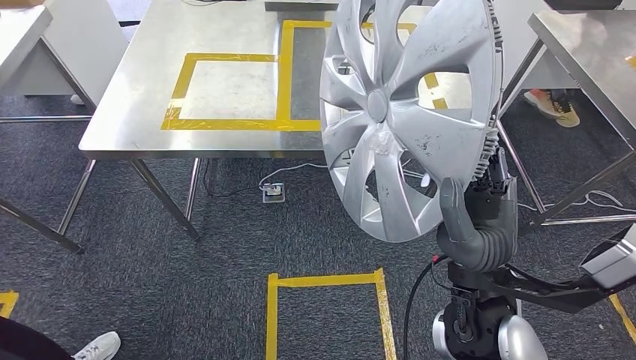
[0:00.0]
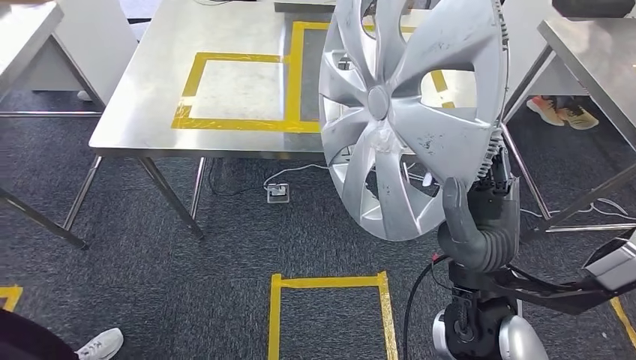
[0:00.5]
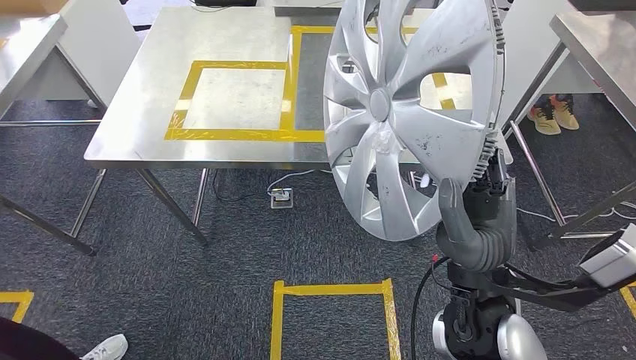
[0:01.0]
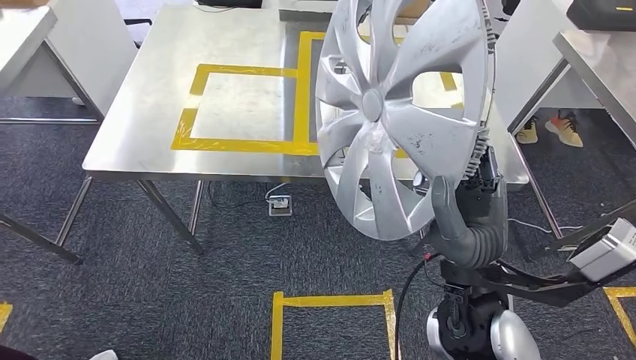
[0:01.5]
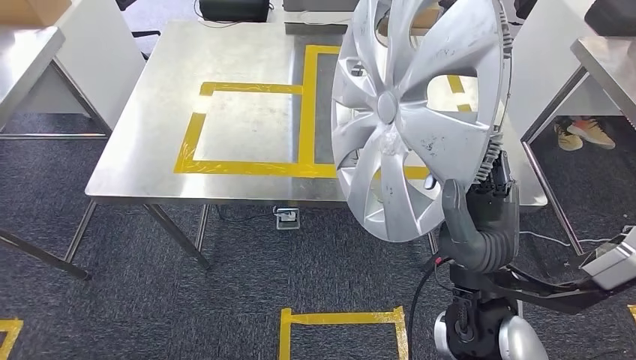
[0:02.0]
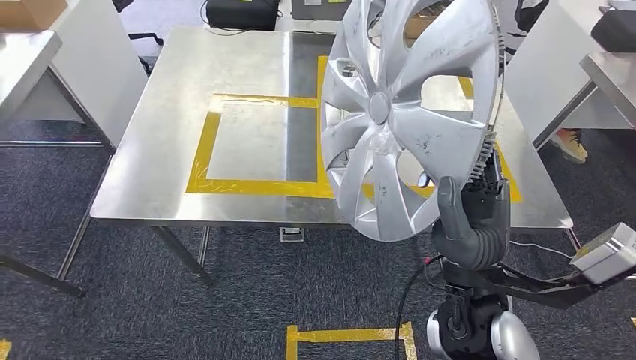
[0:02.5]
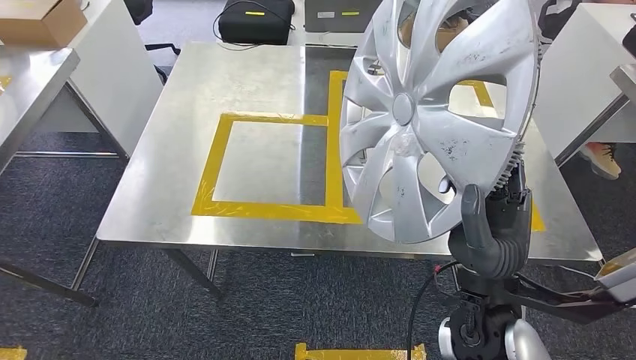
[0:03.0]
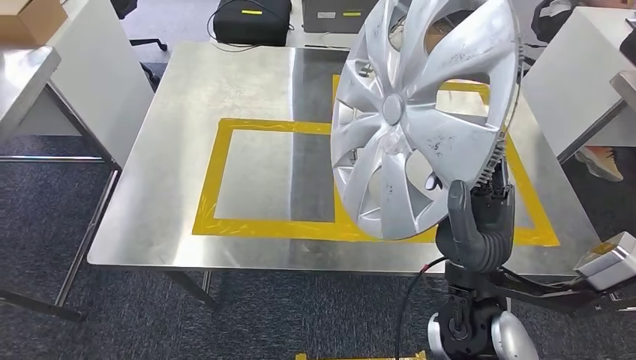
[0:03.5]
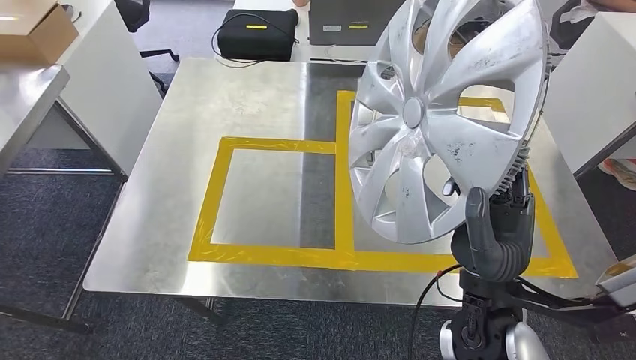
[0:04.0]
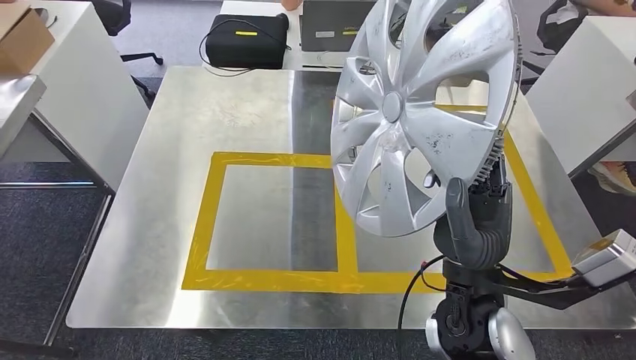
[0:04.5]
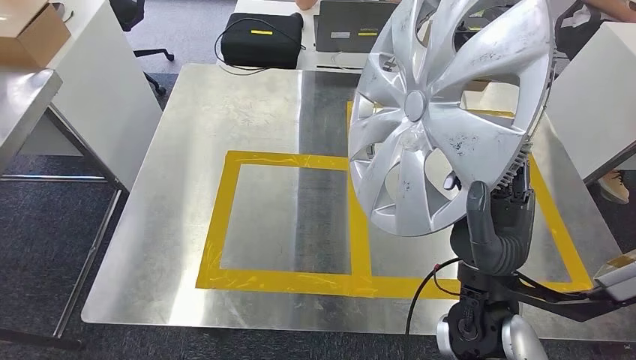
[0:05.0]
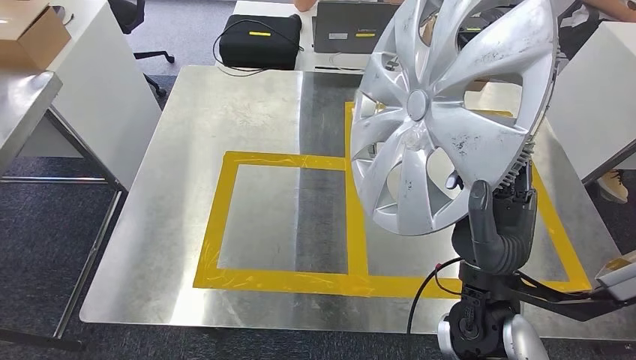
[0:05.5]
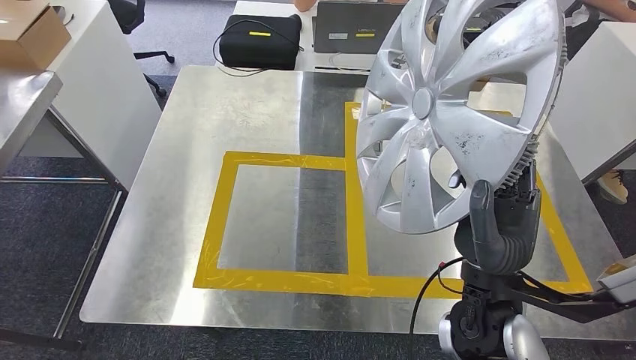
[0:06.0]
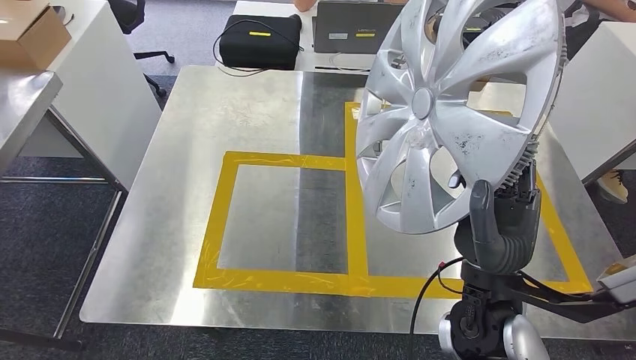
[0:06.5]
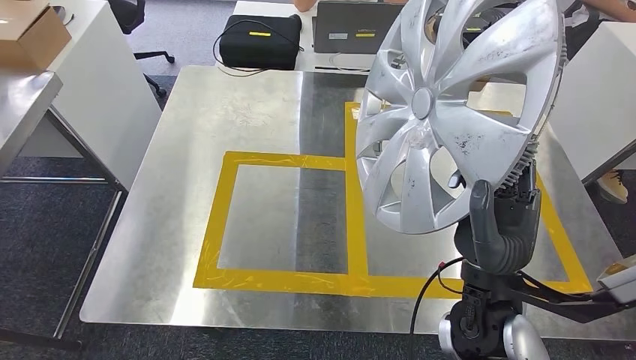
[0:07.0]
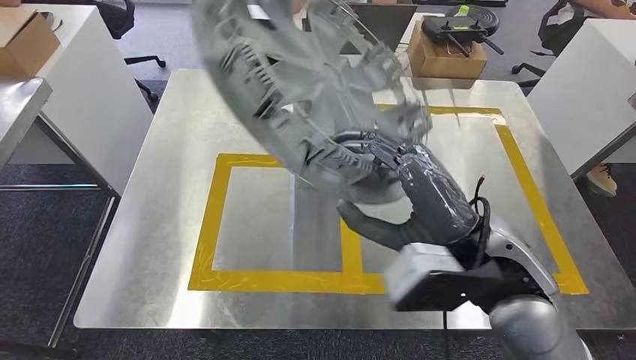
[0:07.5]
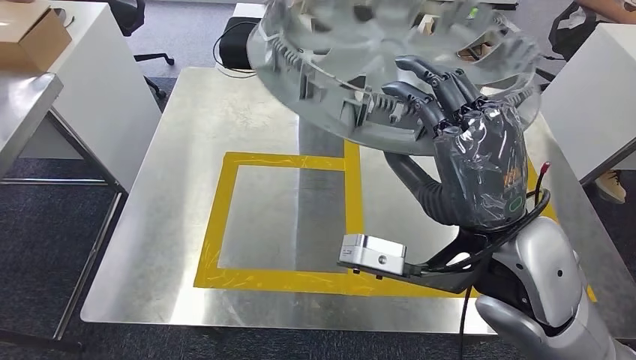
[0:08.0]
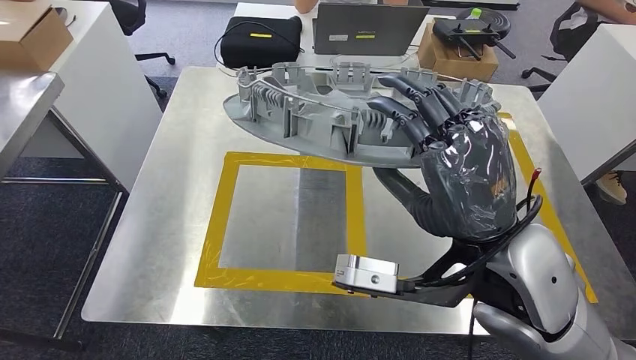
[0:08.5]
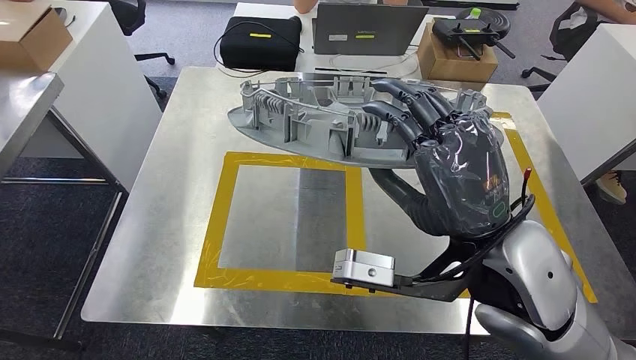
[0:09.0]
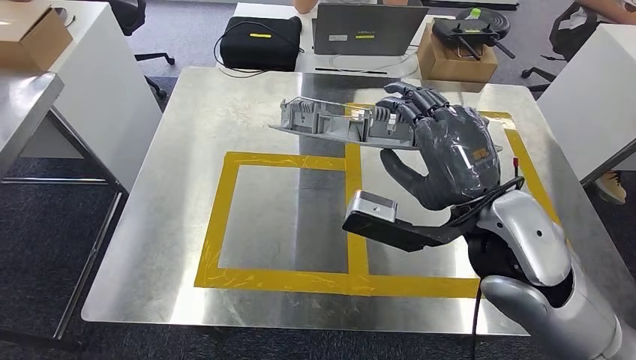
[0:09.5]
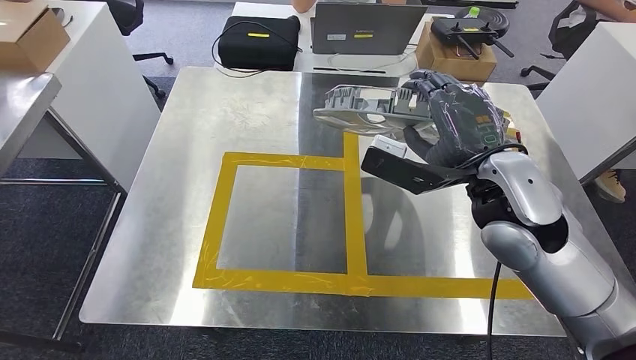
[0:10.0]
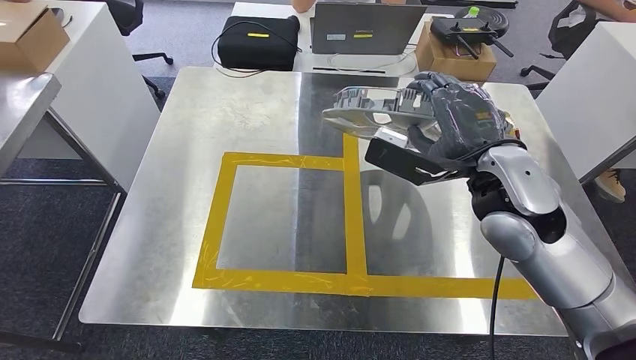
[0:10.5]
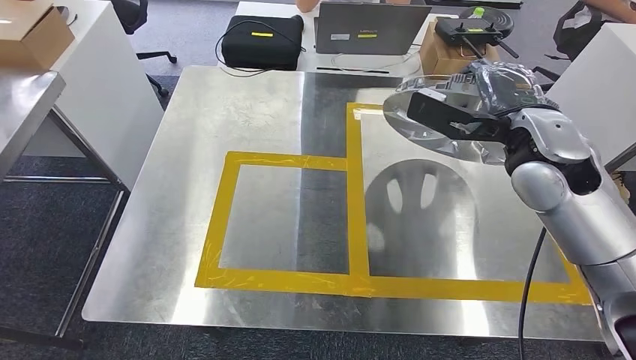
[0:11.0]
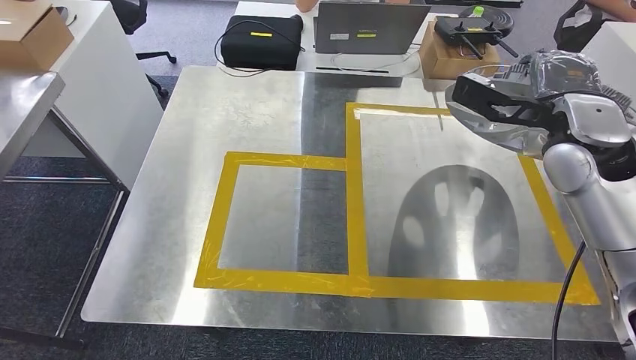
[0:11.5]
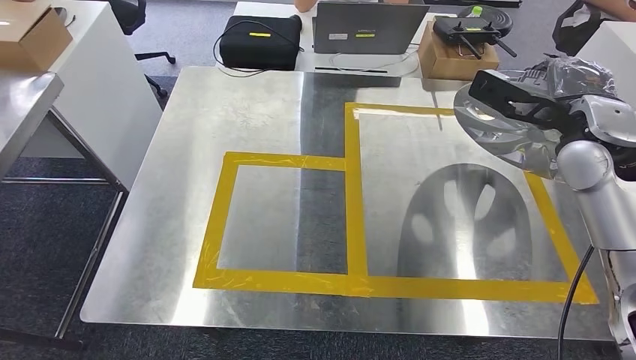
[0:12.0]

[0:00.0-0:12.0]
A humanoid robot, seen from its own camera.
Step, 0:00.0 to 0:03.0: Bring the small component to the front of the workbench.

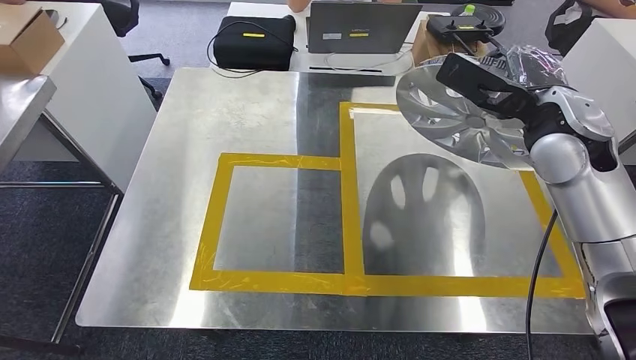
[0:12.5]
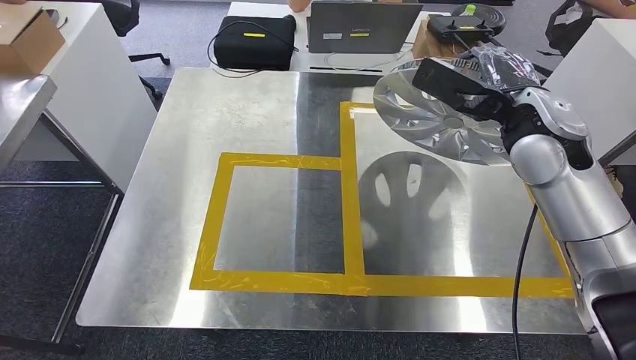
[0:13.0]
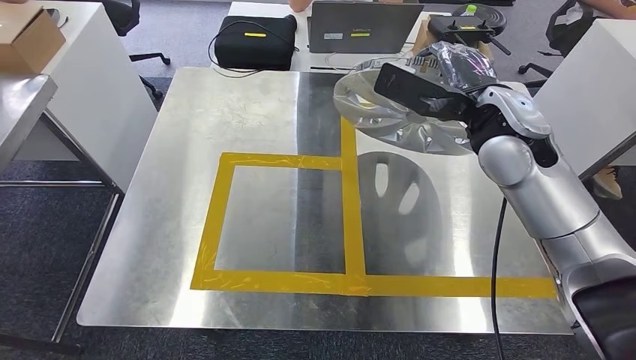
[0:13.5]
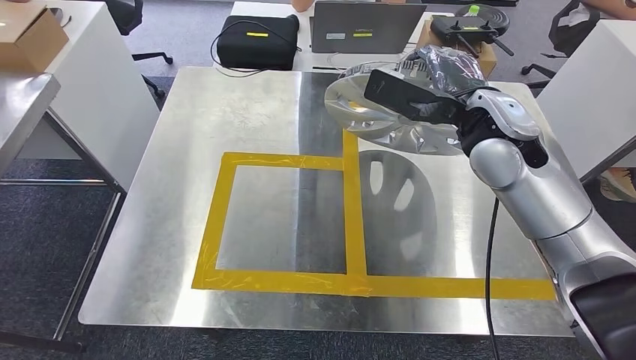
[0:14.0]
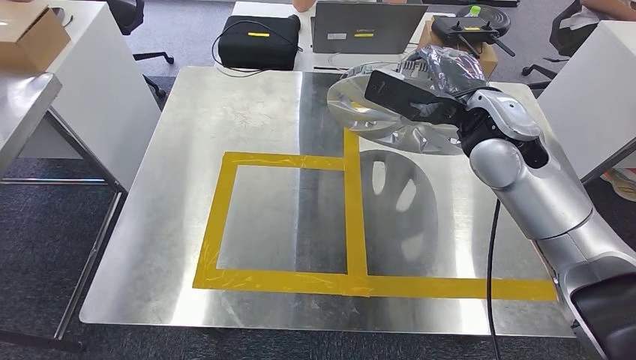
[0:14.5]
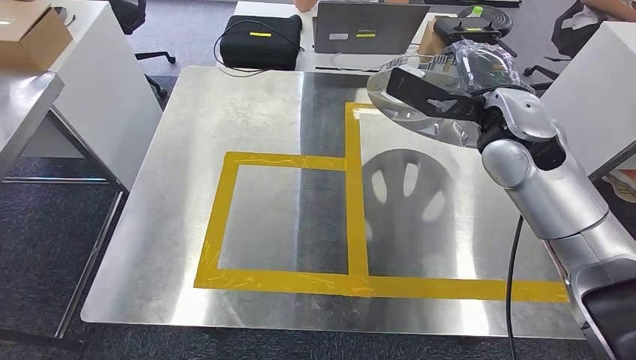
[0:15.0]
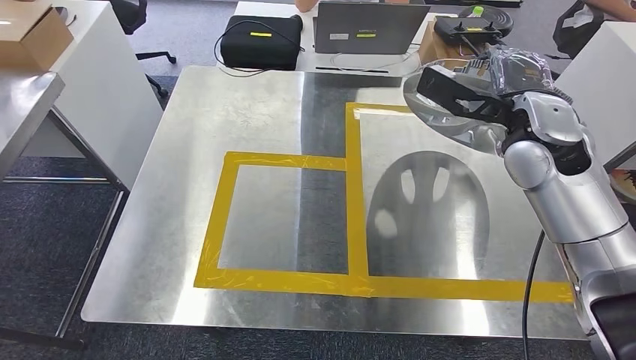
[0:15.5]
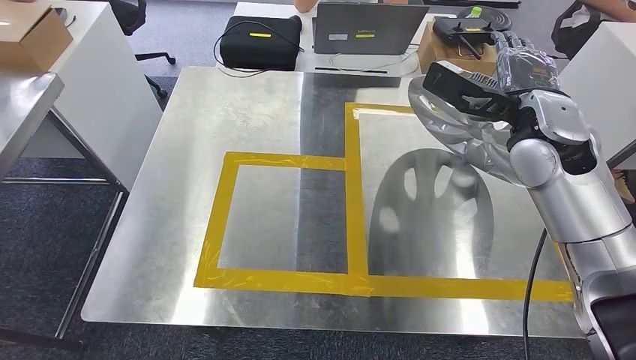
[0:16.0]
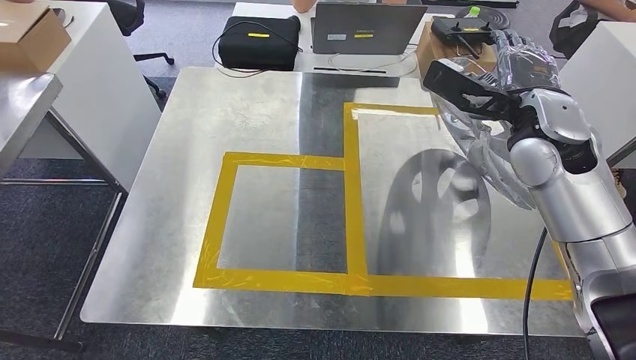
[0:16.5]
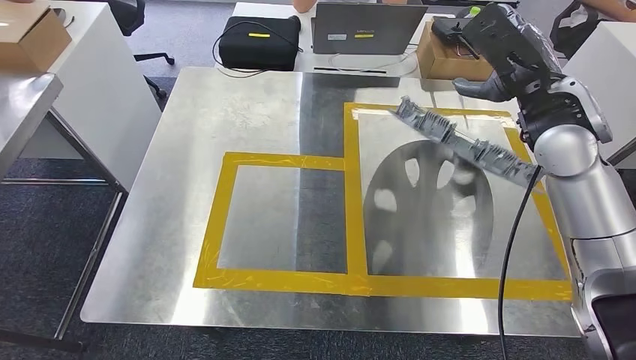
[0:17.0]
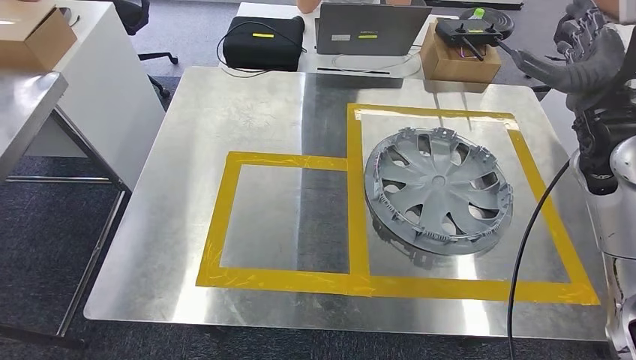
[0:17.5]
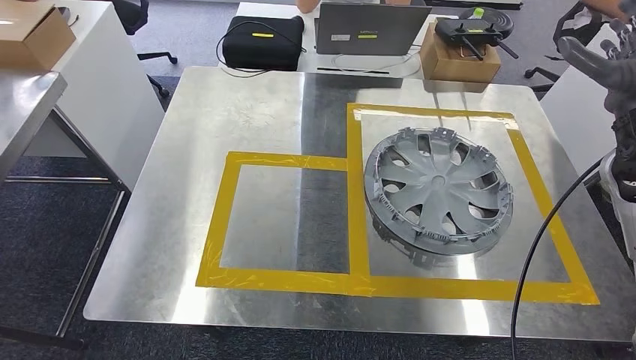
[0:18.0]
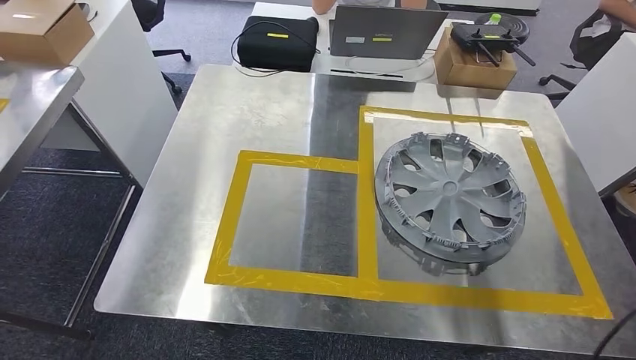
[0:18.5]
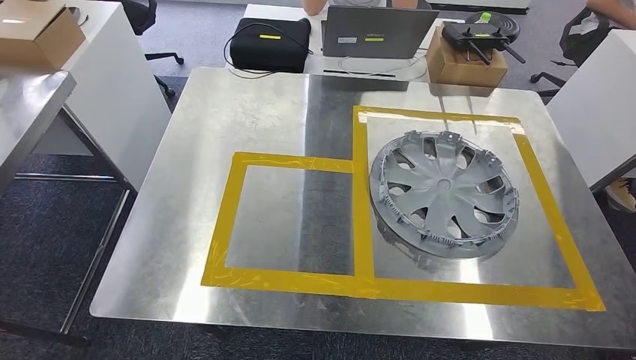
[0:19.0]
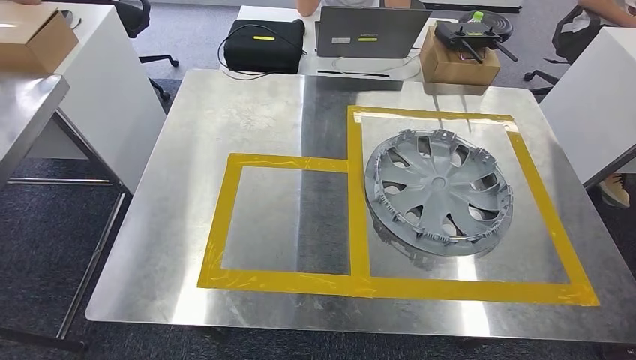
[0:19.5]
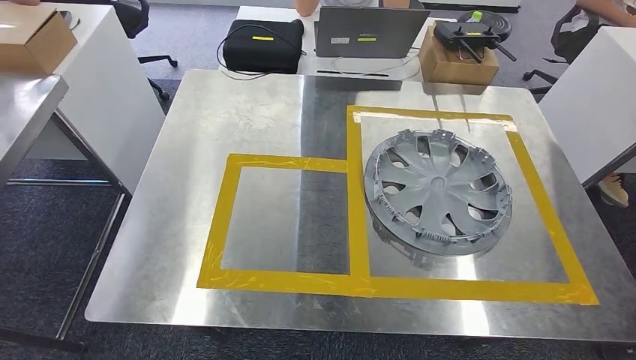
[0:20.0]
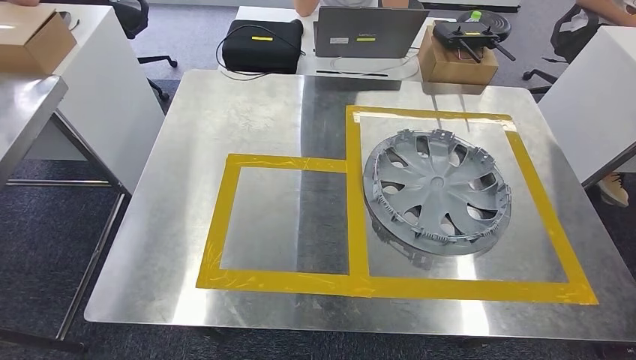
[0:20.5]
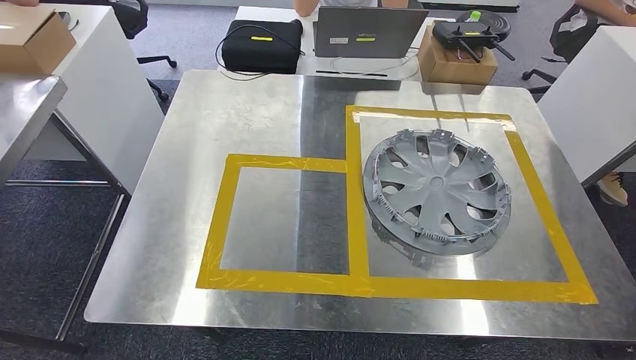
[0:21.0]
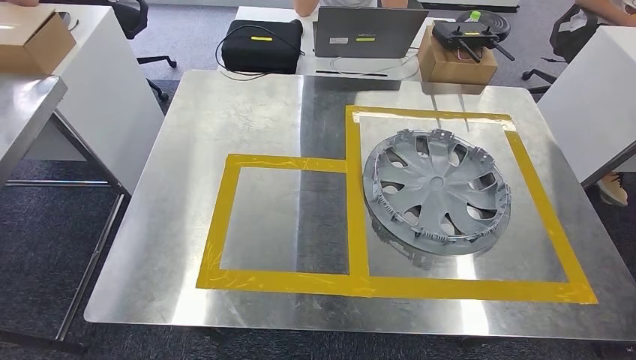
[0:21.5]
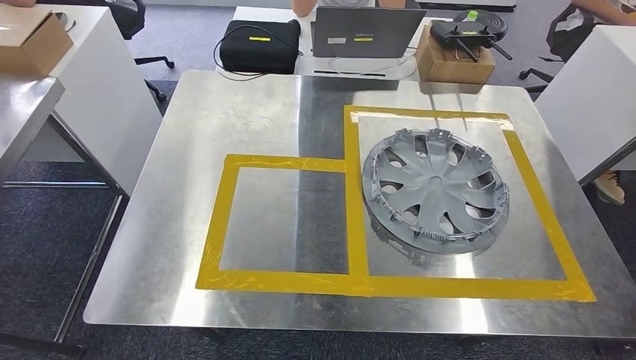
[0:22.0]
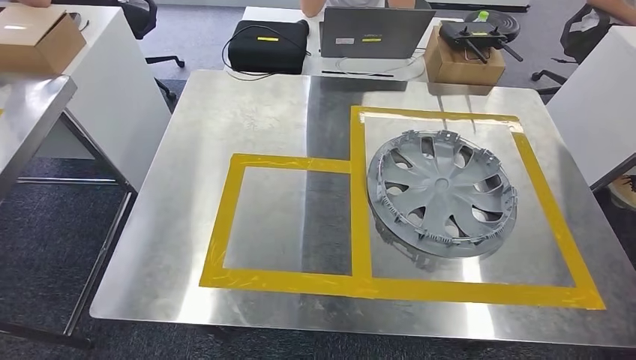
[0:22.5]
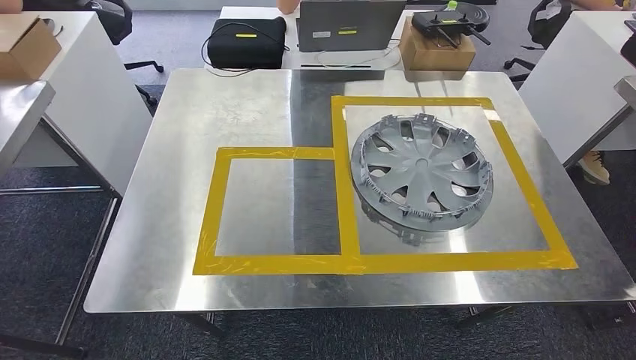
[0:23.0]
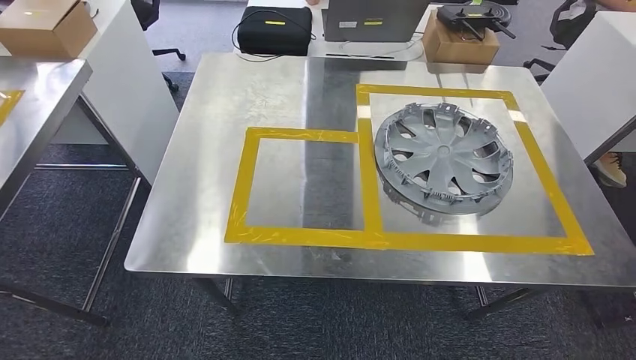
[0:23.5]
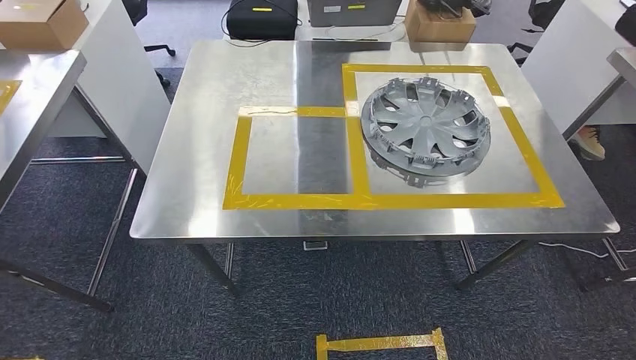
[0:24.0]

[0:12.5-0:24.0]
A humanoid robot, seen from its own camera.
Step, 0:12.5 to 0:19.5: Insert the small component into the corresponding slot on the workbench.
0:20.0 to 0:22.0: The right hand goes about 35 cm to the left and downward.